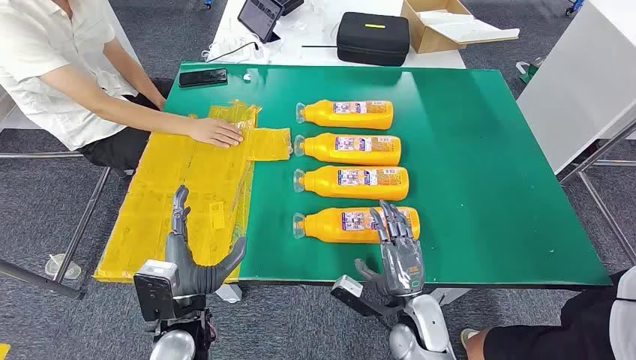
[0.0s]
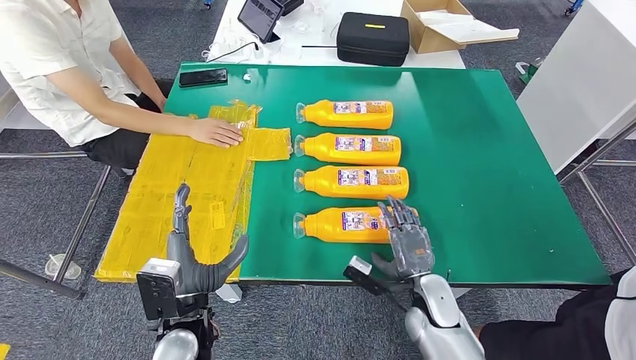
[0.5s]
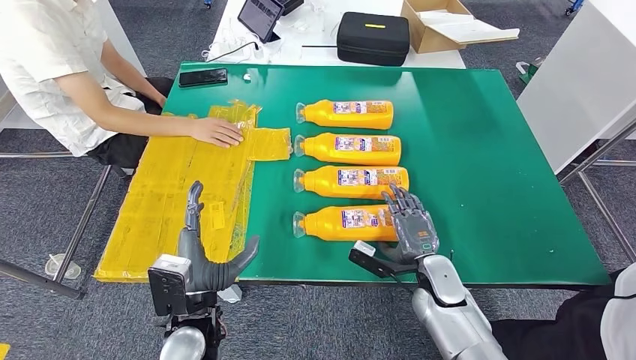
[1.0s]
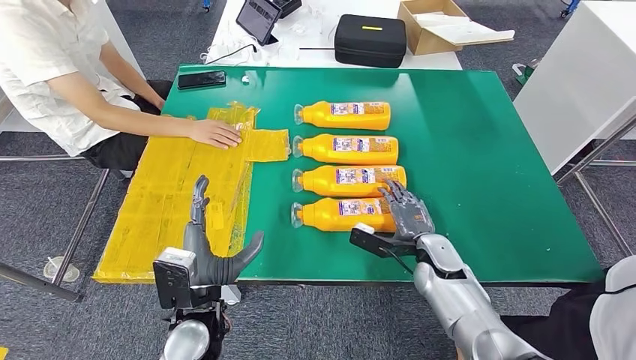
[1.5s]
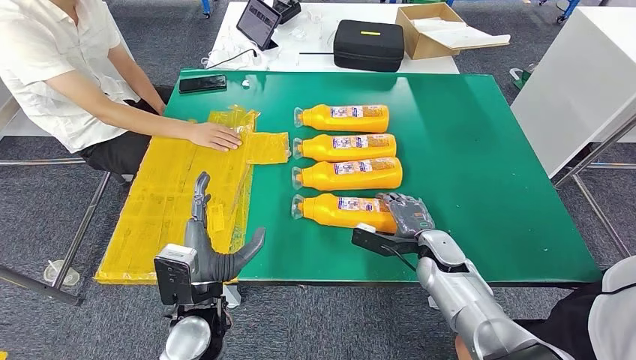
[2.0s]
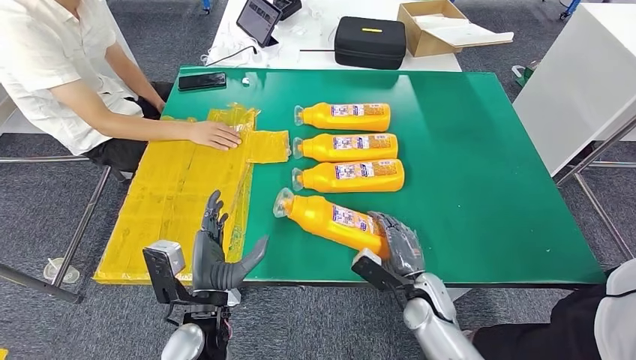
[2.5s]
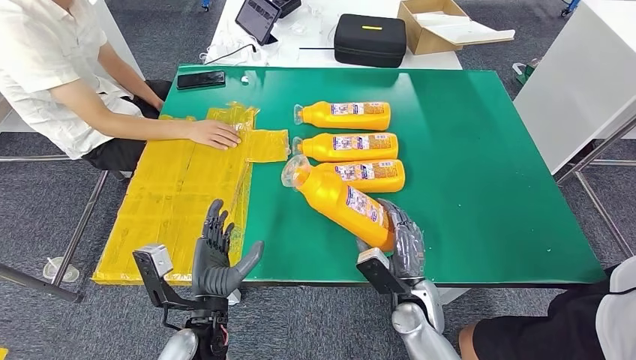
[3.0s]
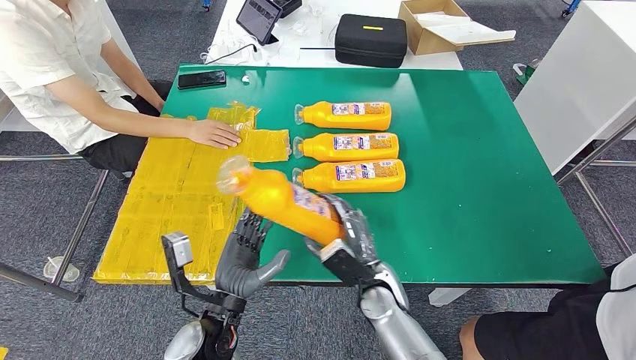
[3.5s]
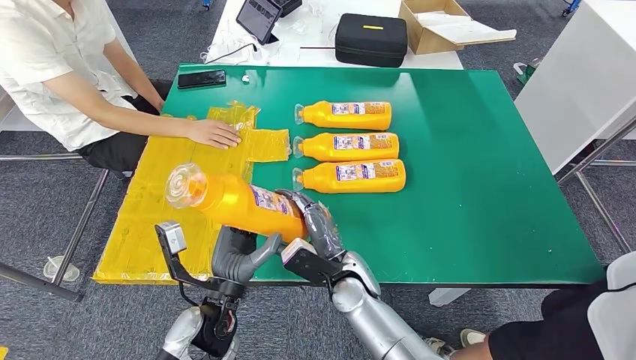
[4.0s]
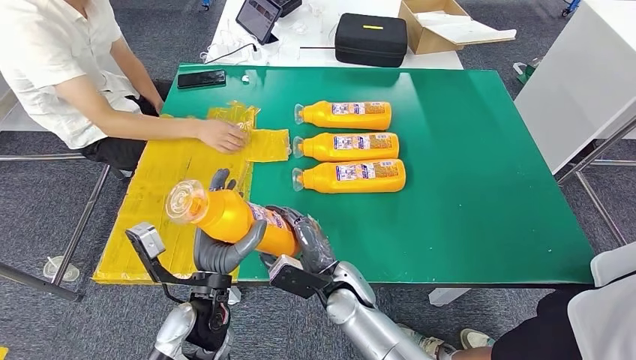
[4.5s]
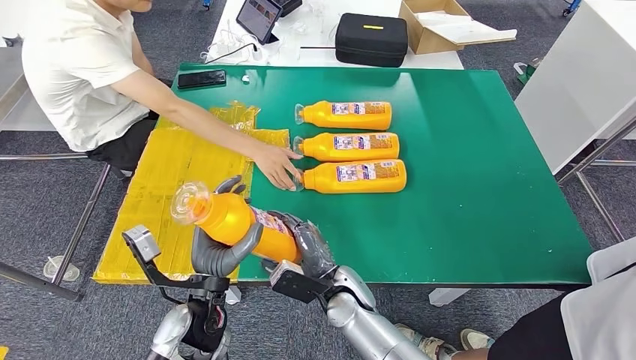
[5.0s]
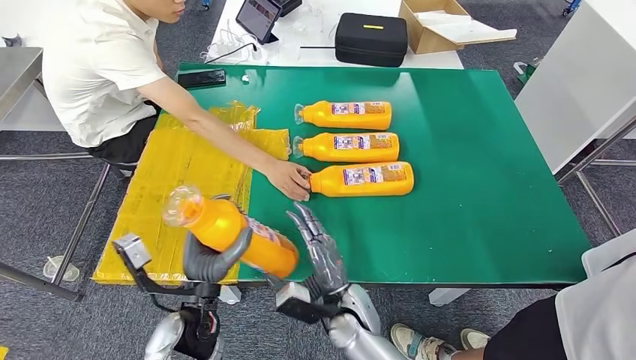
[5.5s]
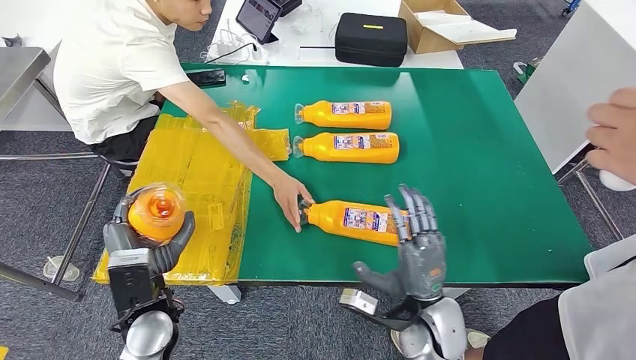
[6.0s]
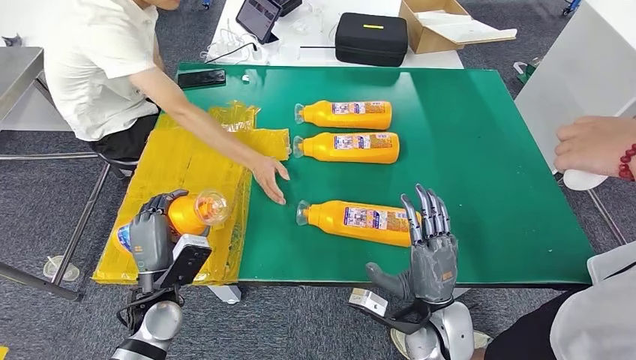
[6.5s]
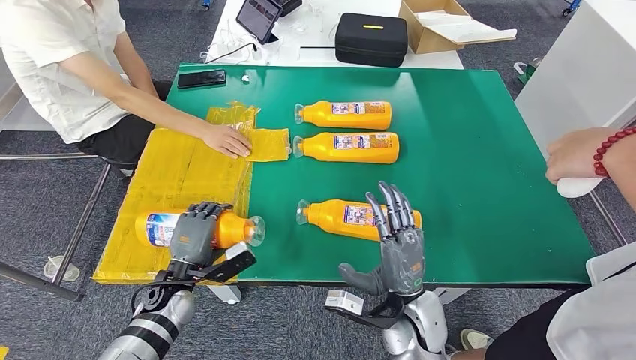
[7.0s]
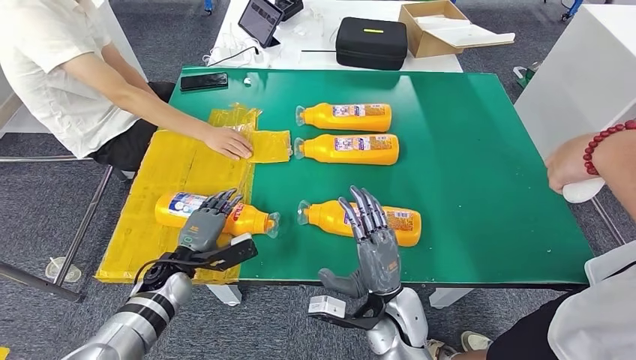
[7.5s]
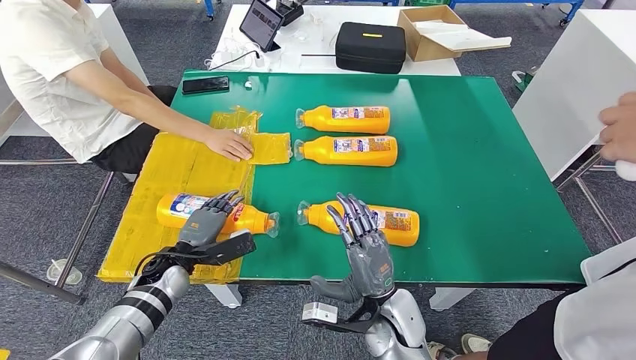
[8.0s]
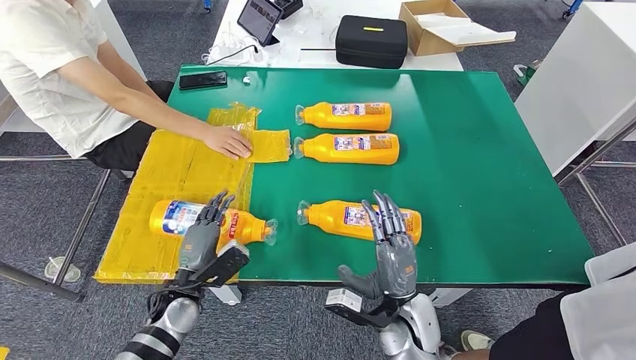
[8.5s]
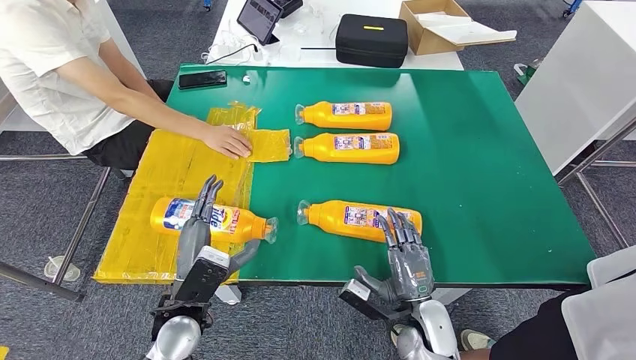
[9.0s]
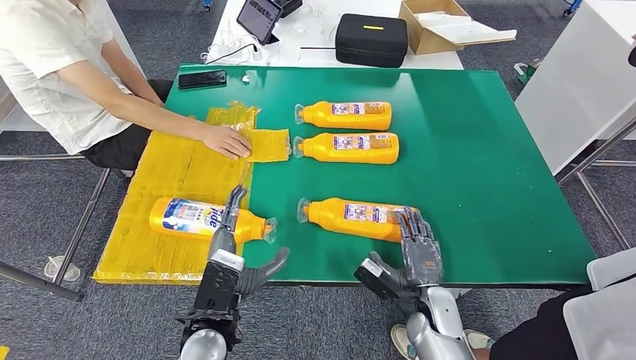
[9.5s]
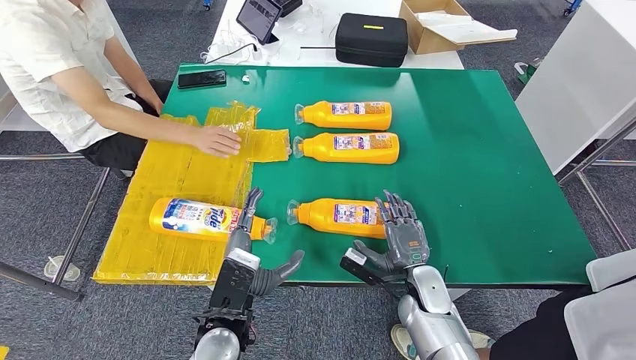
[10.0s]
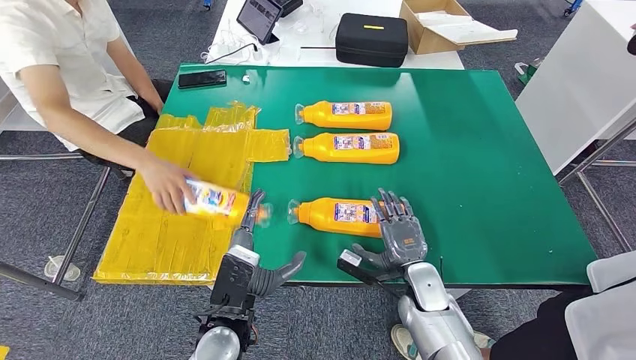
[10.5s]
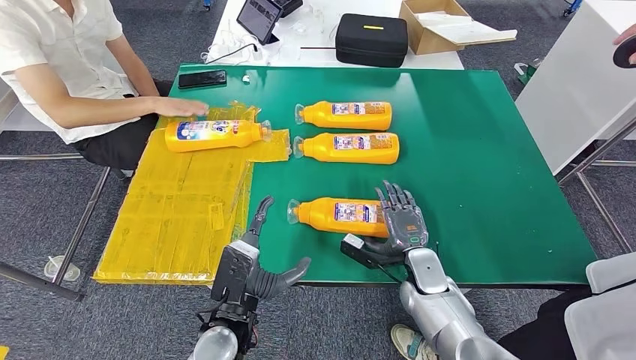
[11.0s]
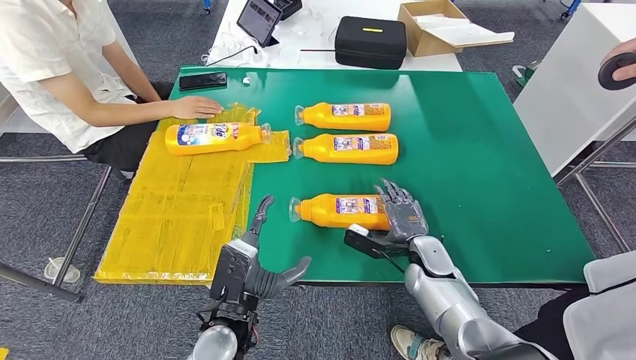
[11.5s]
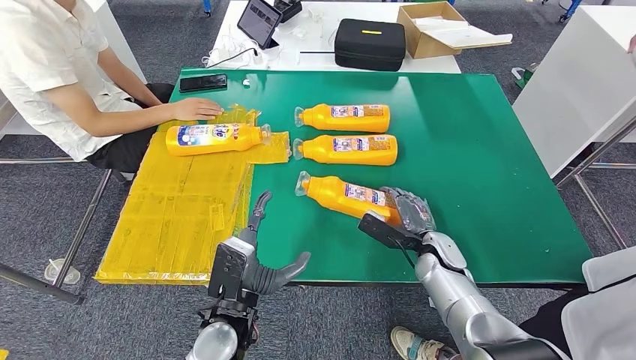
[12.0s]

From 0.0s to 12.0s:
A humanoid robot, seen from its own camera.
Step, from 0.0s to 3.5s: Take the fast-moving consumer goods bottle from the table.
Step, from 4.0s to 9.5s: Flip the fast-moving consumer goods bottle to the front side.

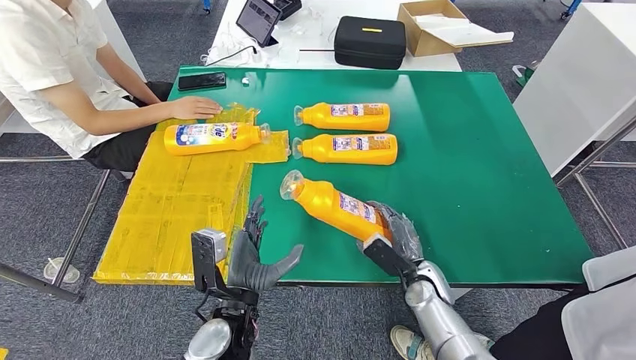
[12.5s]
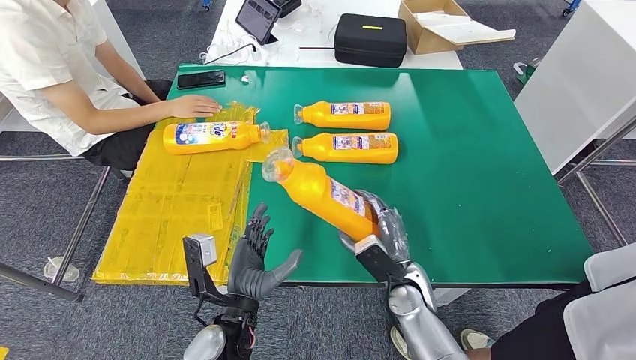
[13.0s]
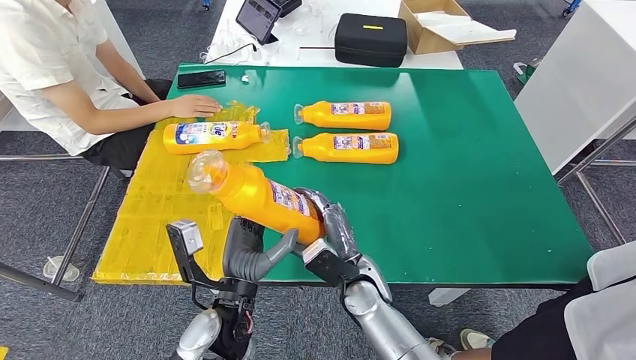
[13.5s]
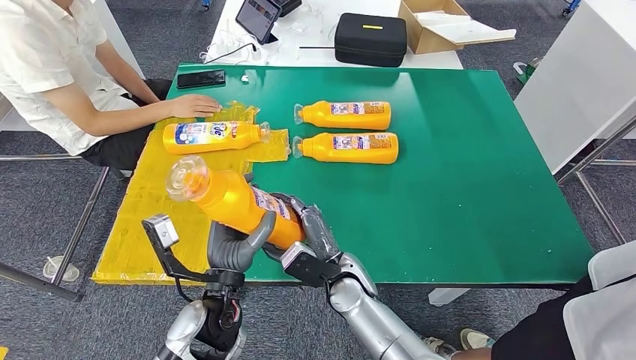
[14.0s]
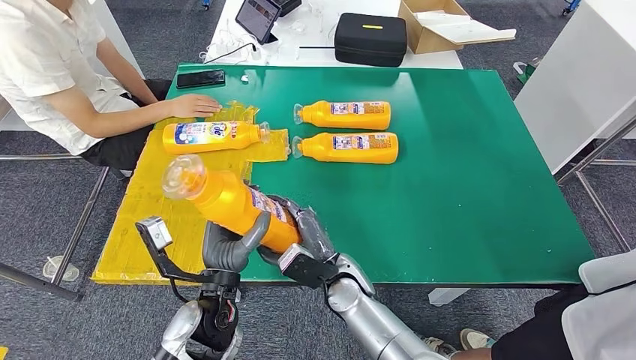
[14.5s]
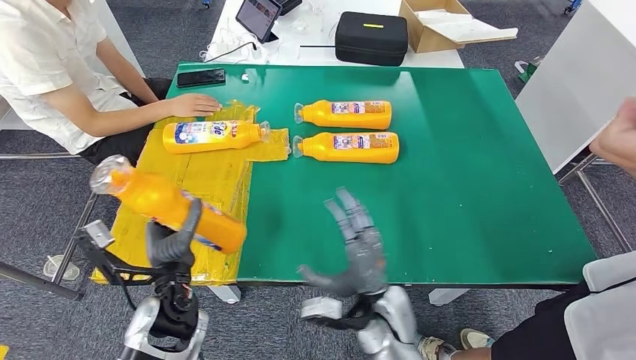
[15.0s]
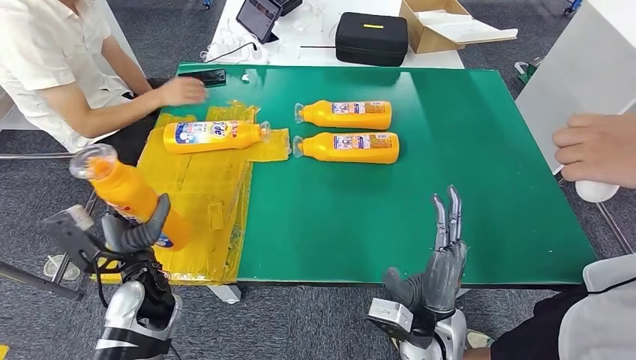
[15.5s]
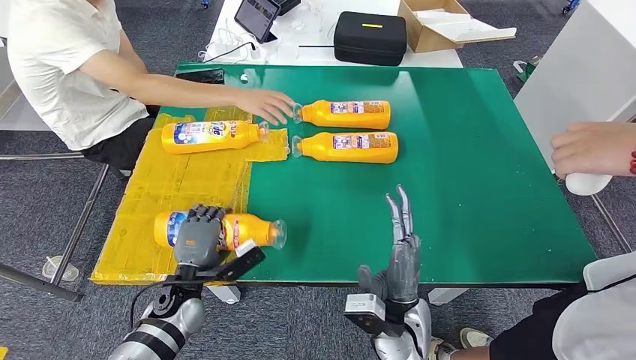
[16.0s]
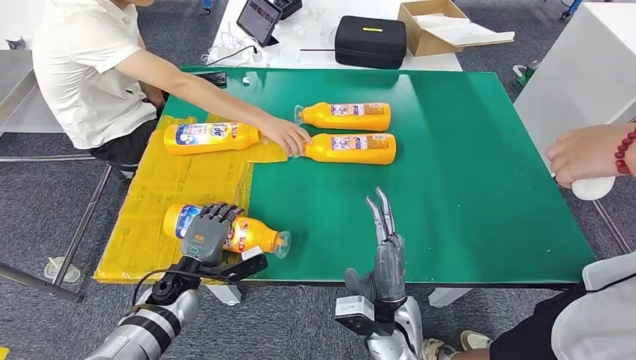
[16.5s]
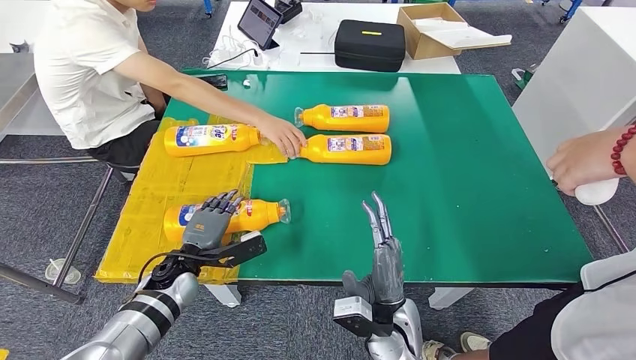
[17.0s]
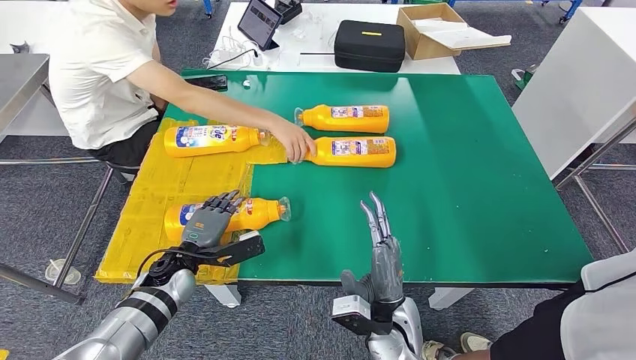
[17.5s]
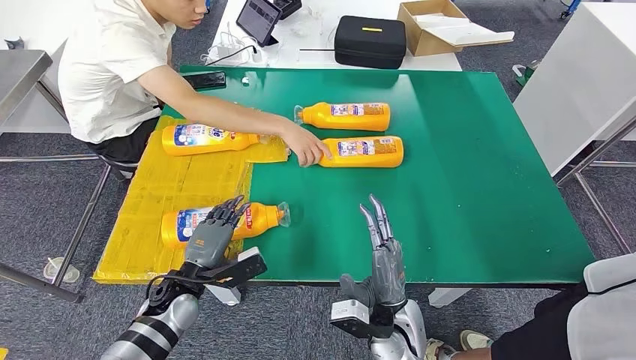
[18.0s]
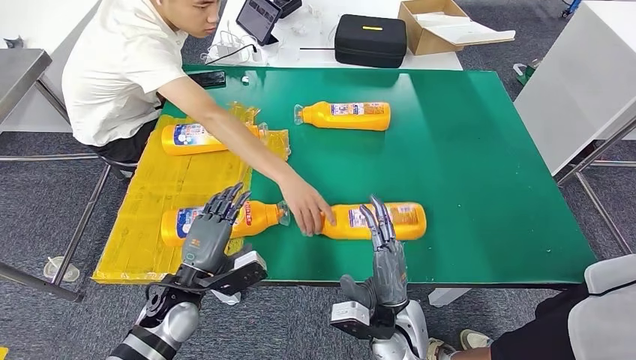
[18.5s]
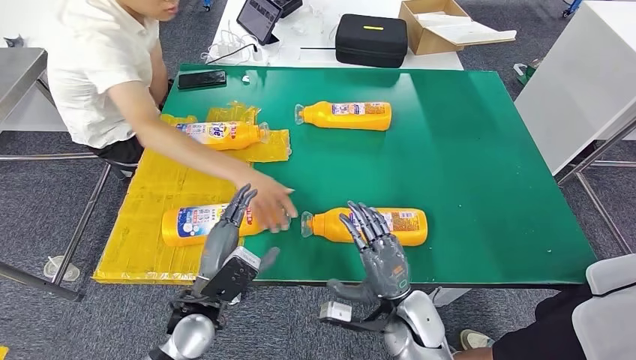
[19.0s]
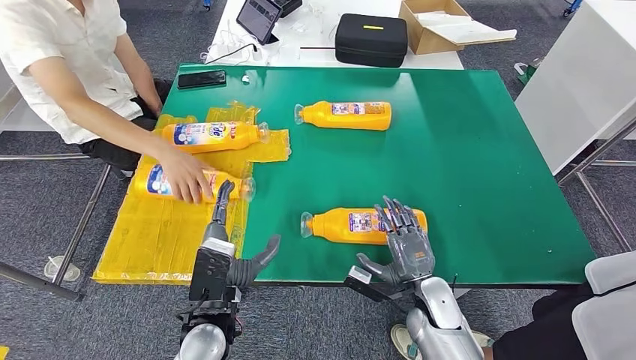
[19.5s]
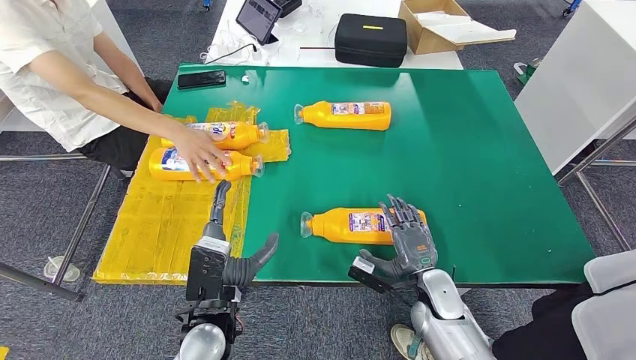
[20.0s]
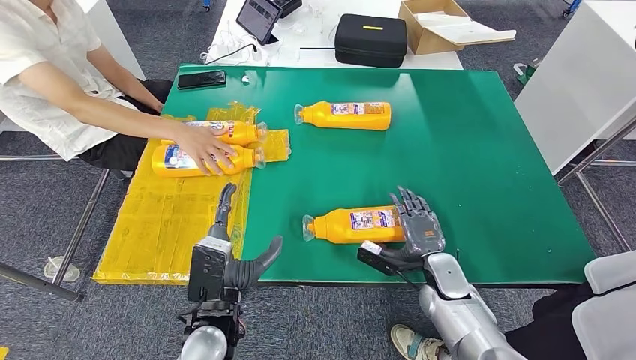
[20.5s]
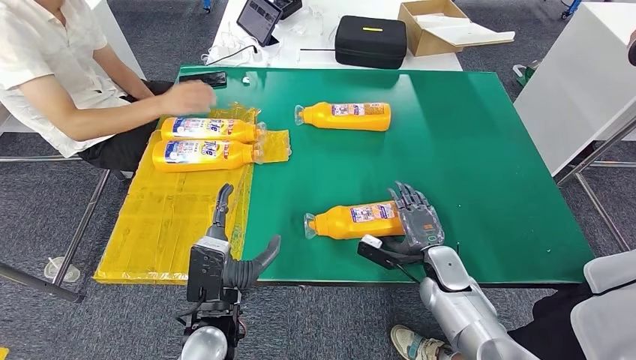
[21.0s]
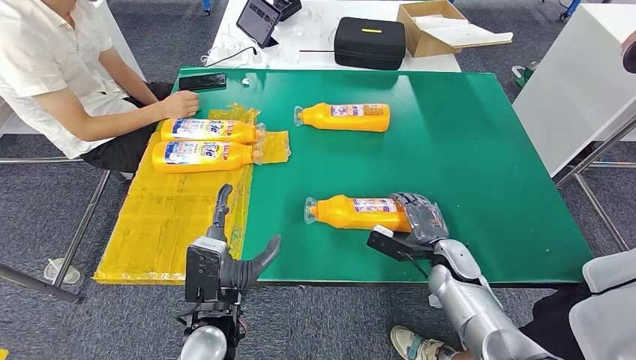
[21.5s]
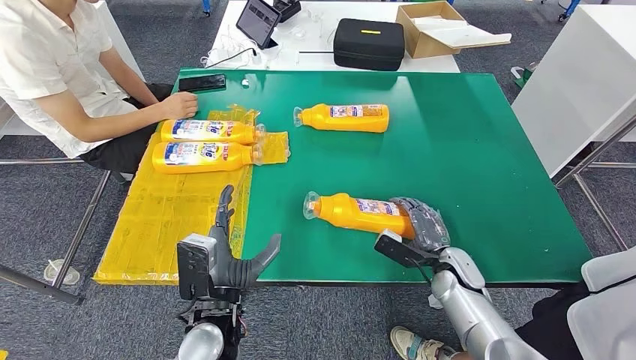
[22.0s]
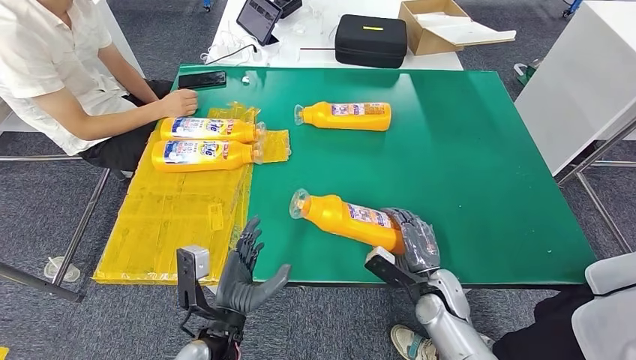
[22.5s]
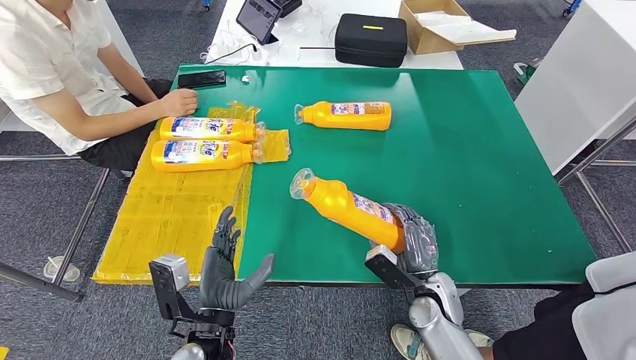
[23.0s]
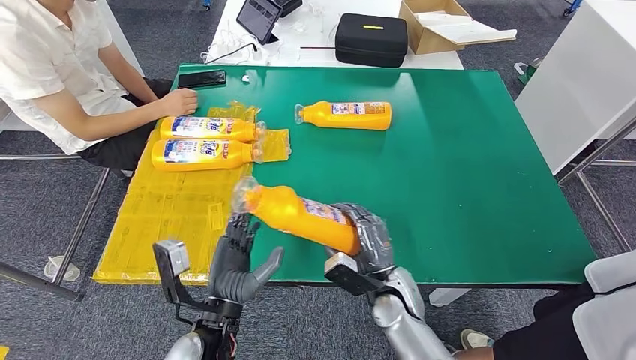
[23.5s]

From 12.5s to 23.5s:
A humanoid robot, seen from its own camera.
Step, from 14.0s to 19.0s: Flip the fast-moving consumer goods bottle to the front side.
Step, from 19.5s to 23.5s: Pick up the fast-moving consumer goods bottle from the table.
